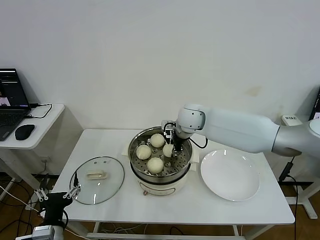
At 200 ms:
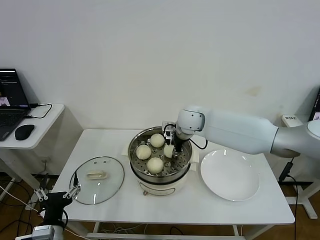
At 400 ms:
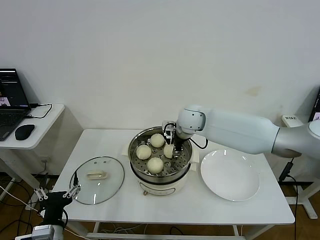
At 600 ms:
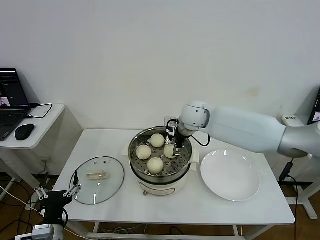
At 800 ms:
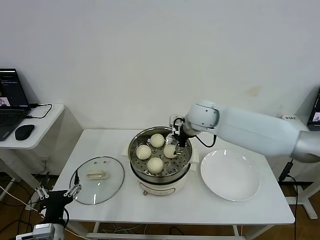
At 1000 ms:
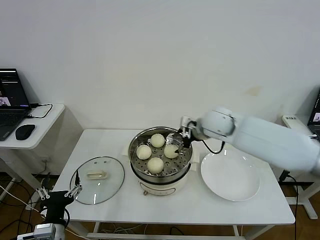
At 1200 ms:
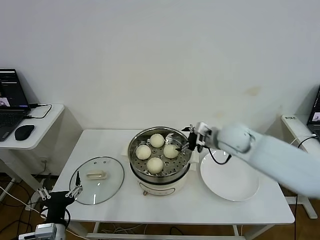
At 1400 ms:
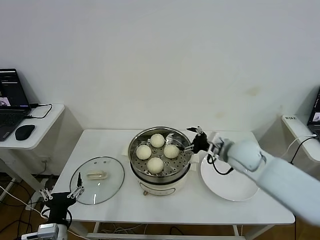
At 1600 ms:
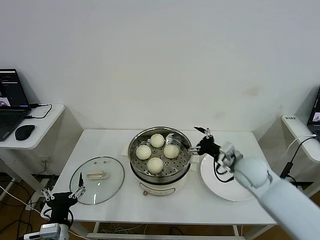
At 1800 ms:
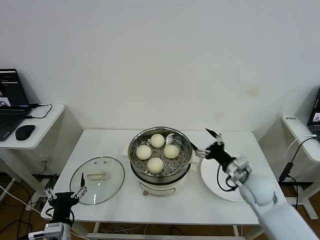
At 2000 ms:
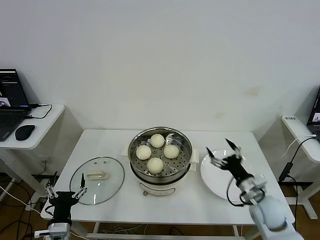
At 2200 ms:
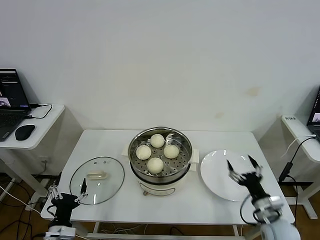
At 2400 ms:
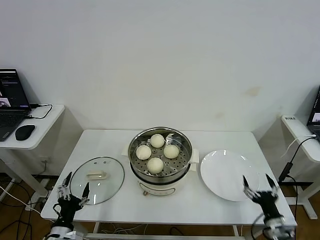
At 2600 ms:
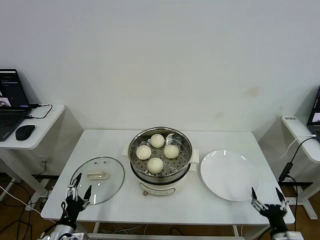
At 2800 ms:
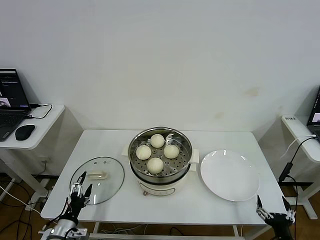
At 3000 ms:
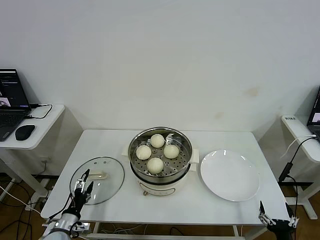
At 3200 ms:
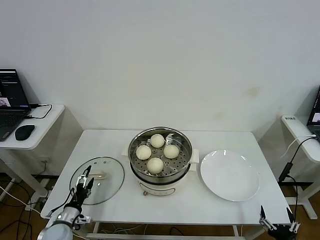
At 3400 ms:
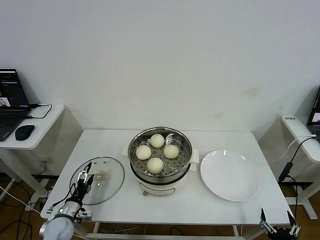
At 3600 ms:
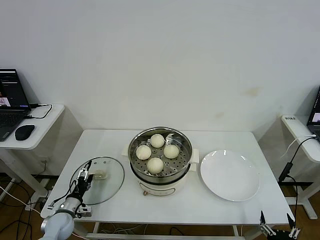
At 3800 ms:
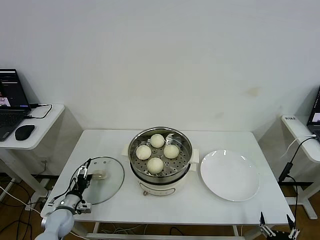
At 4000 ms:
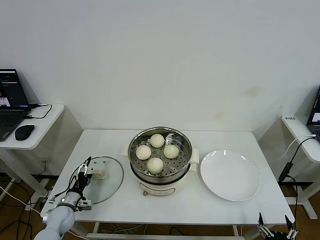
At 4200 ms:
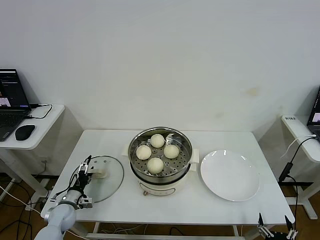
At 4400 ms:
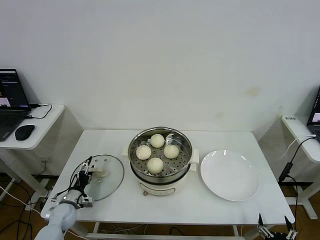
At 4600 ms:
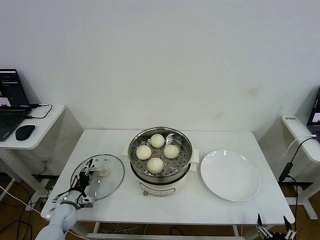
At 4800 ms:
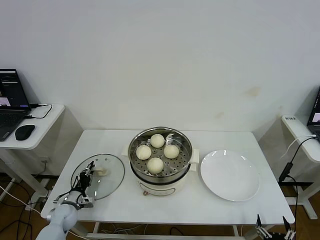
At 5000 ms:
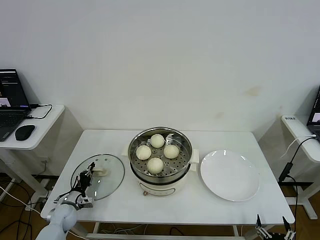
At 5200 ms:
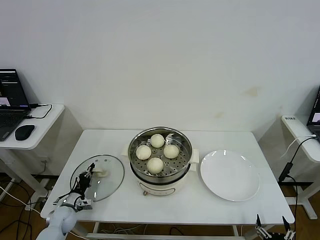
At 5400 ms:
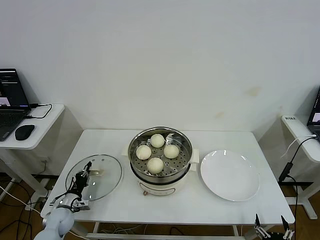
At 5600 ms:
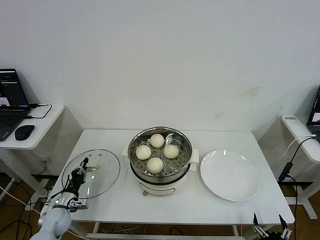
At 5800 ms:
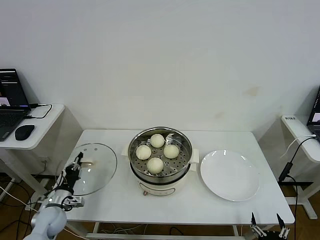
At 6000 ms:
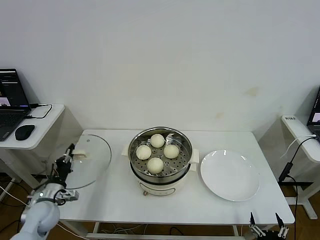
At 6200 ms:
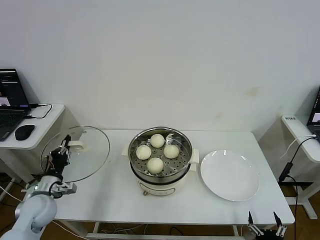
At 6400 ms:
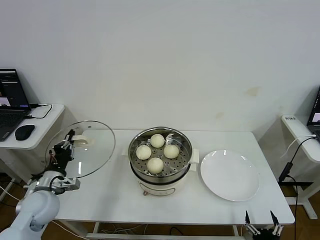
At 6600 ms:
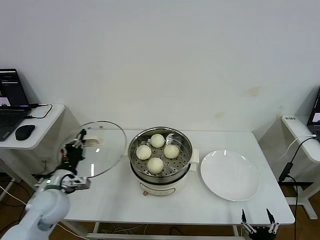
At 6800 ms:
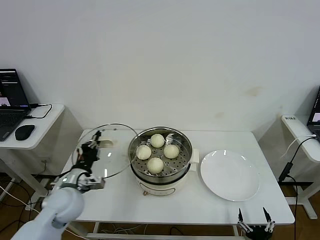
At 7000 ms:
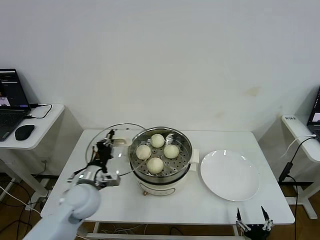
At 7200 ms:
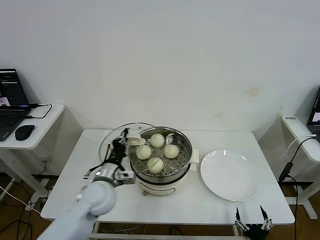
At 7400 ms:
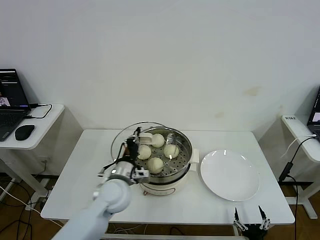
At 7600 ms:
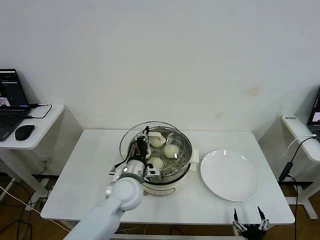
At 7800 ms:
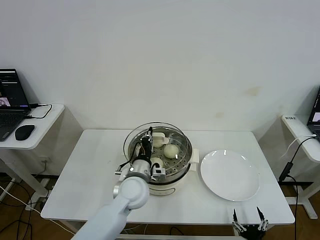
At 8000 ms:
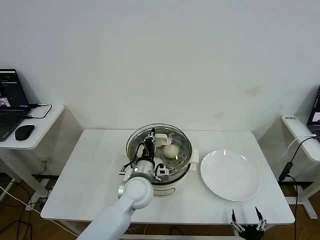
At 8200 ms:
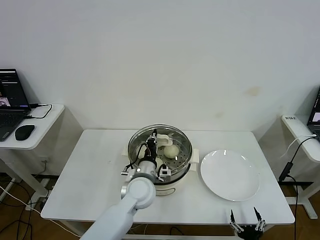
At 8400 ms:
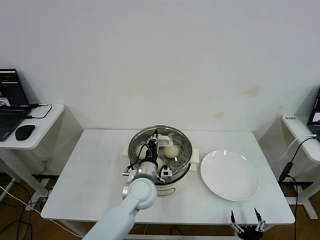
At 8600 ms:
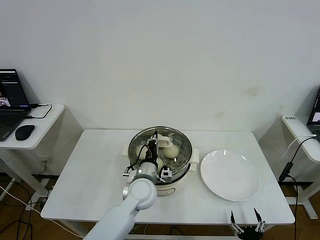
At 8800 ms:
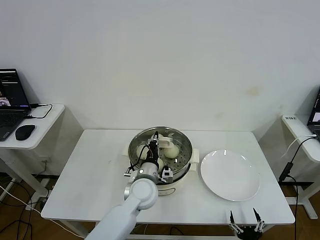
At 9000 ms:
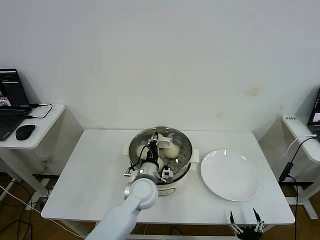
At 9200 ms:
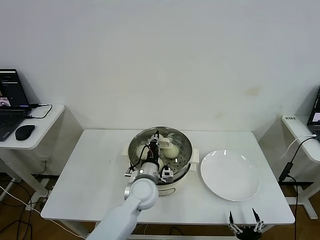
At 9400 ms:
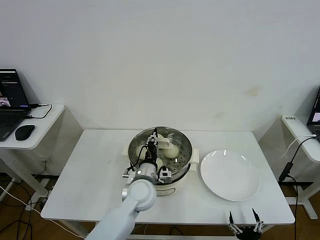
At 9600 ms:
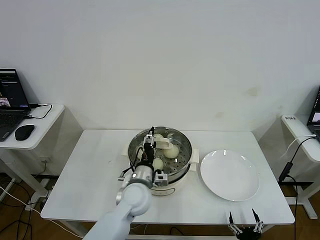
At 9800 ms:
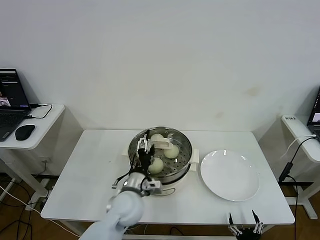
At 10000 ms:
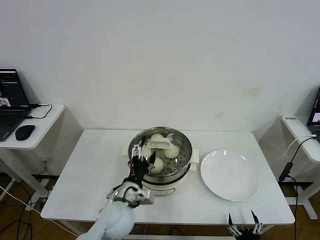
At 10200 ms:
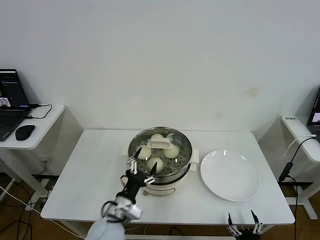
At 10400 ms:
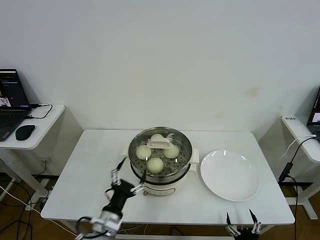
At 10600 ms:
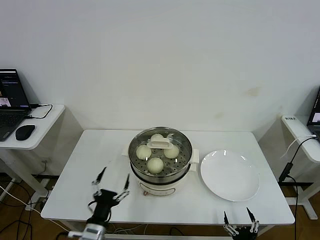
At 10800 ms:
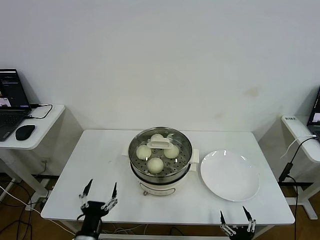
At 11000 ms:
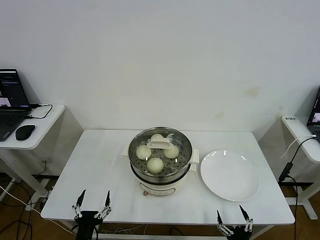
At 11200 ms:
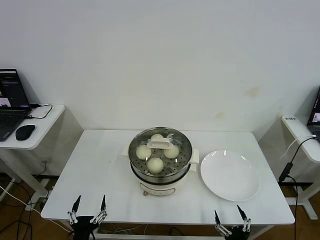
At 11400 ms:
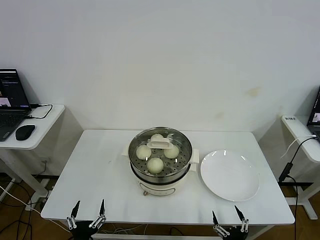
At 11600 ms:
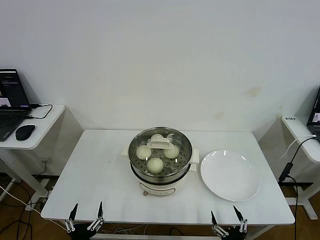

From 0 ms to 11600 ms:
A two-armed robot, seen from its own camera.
Step, from 600 ms to 5000 ms: Grasp the pot lid with left gripper.
Step, from 5200 ms to 9400 ms: Place the pot lid on the steamer with left gripper.
From 0 ms to 1400 ms: The right gripper shifts approximately 20 cm to the right and backward, and opens up.
From 1400 ms to 2800 ms: The left gripper shifts approximately 10 cm downward and to the left. Meanwhile the right gripper travels backward, downward and to the right by roughly 40 cm.
From 2800 ms to 4400 ms: The right gripper shifts by some 5 cm; the left gripper heads forward, covering roughly 15 cm.
From 4400 ms to 5800 ms: The left gripper ends up some 5 cm from where it was, and closes up.
From 5800 ms to 7200 ms: The left gripper goes approximately 25 cm to the right and upward.
From 7200 ms to 8800 ms: The left gripper moves to the right, about 15 cm.
From 8800 ms to 10200 ms: The left gripper heads backward and to the left, covering some 15 cm, and opens up.
From 10200 ms to 11600 ms: The left gripper is displaced backward, to the left and downward by approximately 20 cm, while the right gripper shifts by roughly 5 cm.

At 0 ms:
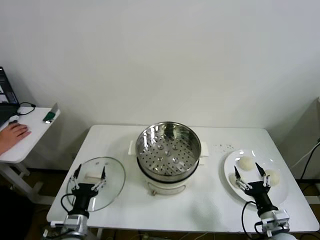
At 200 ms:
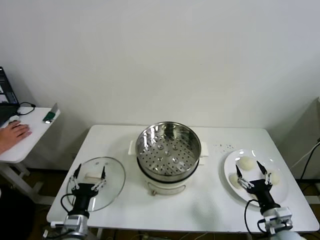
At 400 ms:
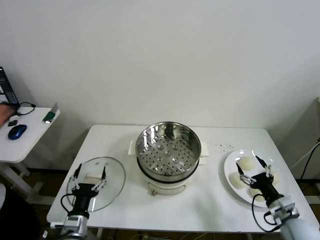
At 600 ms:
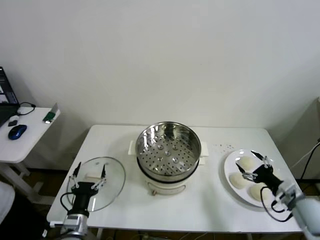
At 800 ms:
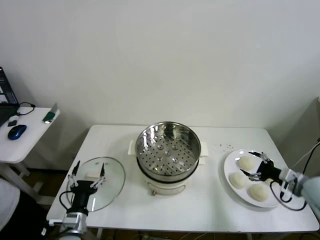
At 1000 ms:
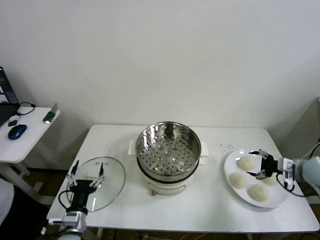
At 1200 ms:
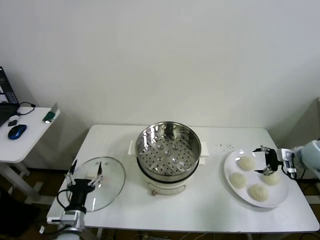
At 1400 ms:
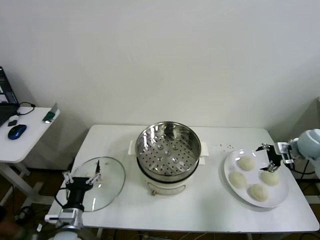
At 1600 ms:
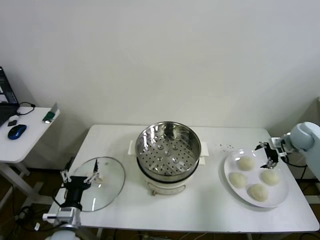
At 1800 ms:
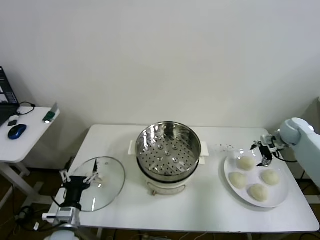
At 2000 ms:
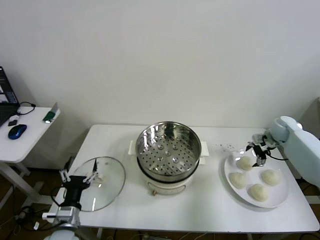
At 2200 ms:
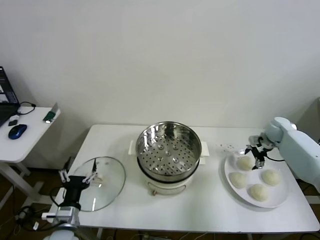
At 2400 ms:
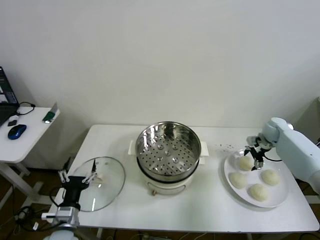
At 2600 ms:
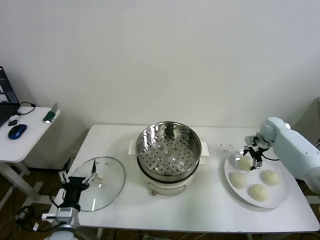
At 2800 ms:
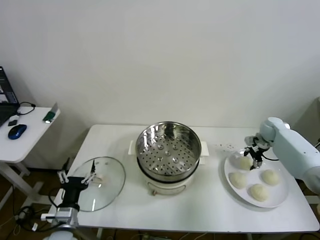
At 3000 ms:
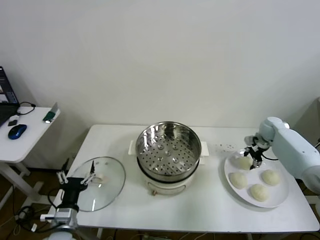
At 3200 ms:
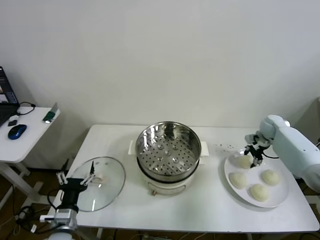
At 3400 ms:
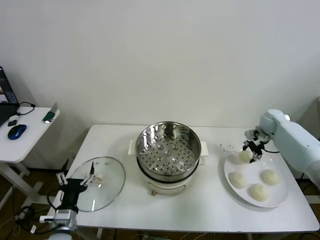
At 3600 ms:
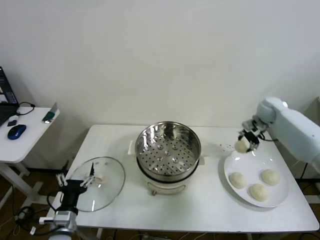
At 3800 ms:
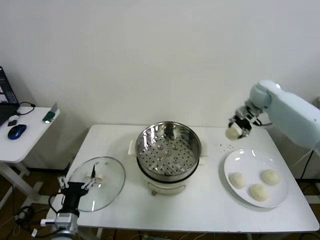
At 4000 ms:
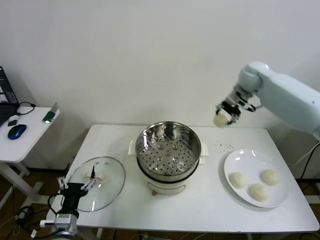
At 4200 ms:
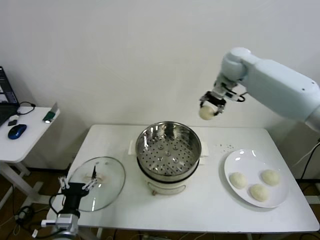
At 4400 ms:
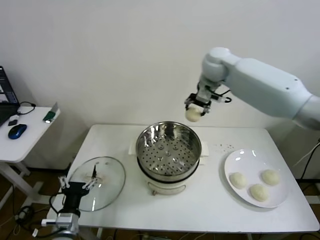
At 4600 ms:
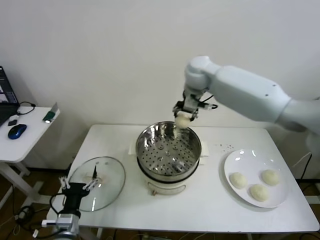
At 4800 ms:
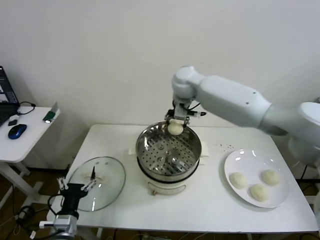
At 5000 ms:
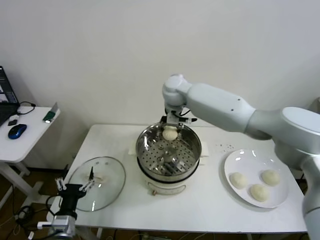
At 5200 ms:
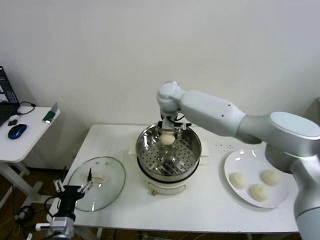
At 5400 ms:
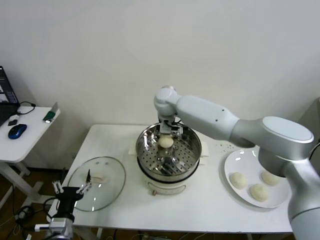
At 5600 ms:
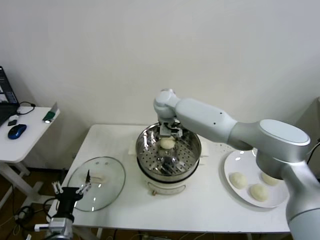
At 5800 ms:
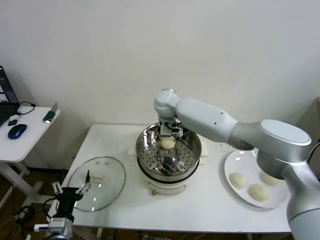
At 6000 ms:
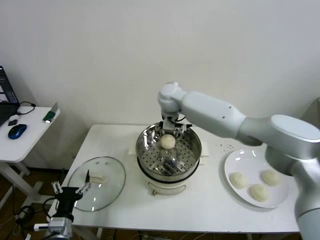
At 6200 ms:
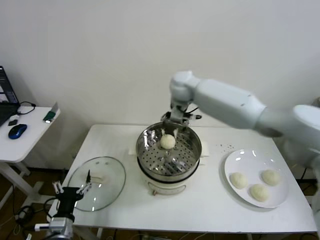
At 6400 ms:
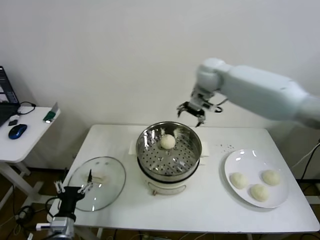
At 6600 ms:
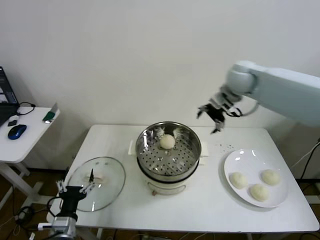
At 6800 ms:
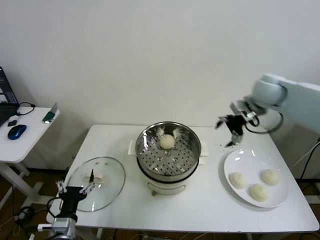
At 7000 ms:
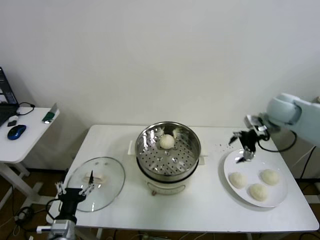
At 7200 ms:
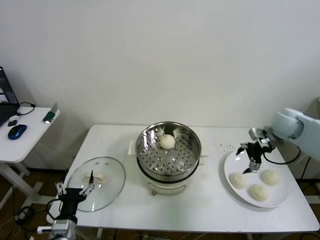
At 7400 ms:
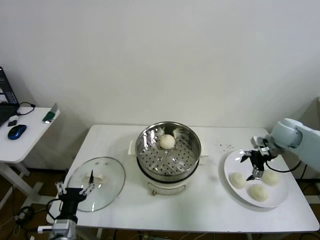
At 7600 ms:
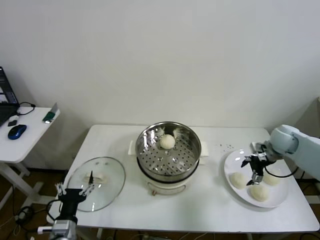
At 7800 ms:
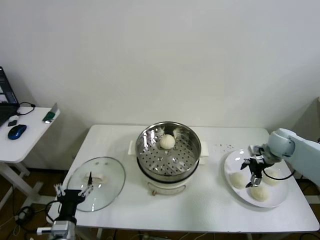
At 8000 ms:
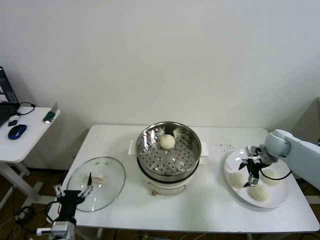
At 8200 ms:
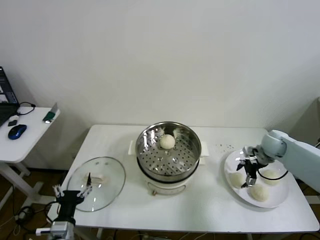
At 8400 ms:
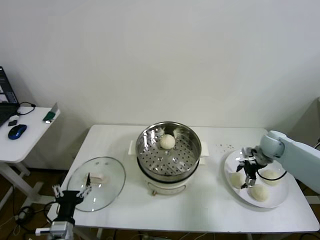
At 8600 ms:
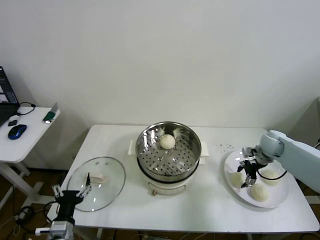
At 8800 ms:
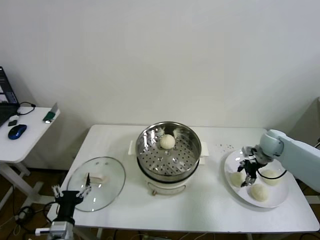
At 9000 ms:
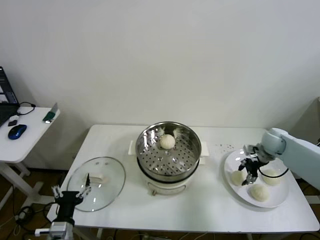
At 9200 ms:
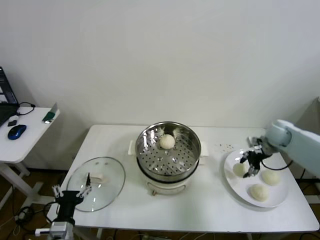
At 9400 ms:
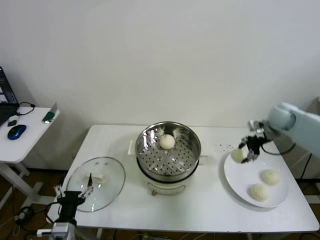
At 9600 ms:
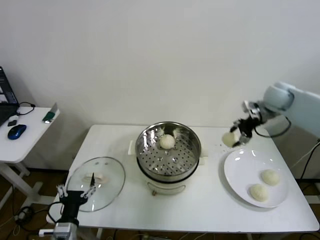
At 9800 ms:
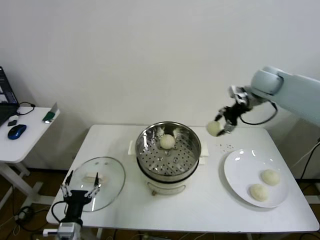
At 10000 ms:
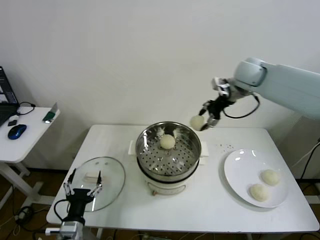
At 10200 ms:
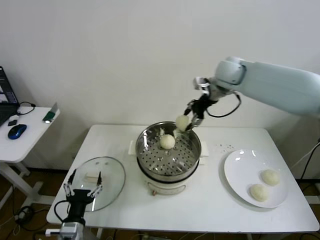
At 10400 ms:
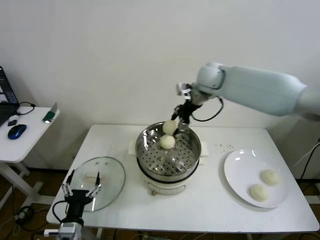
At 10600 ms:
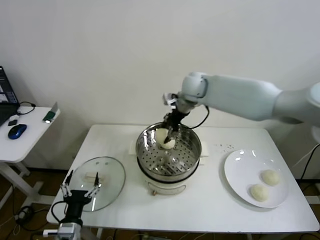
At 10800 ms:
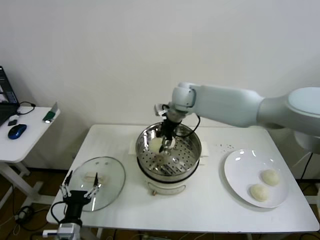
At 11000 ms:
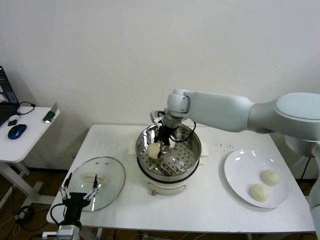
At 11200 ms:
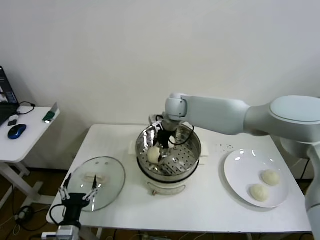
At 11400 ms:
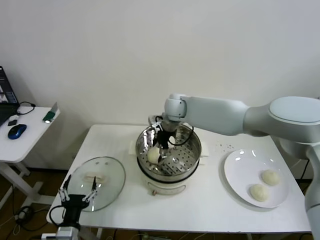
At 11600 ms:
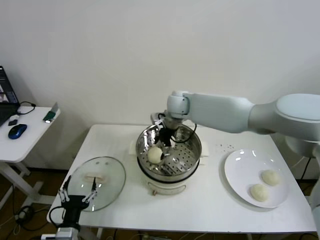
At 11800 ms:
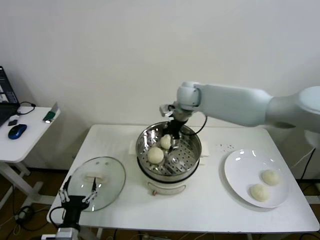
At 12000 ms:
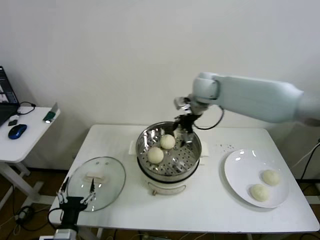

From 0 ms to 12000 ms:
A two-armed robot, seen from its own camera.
Step, from 0 ms to 3000 ms: Grasp the baozi in the plate with right gripper.
Step, from 3200 ms to 6000 ms: Place the baozi on the steamer with right gripper.
Step, from 6200 ms to 8600 ms: Grasp the baozi in the plate with right gripper.
Step, from 8800 ms to 11600 ms: Place the baozi on the steamer with right gripper.
From 1600 ms to 3000 ms: The right gripper moves forward, some 5 cm, and closes its fingers.
From 3000 ms to 4400 ms: The right gripper is displaced to the left and upward by about 40 cm.
From 4400 ms to 6000 ms: The right gripper shifts some 10 cm to the left and downward, and opens.
From 6000 ms to 7600 ms: The right gripper travels to the right by approximately 40 cm.
From 7600 ms to 9000 ms: The right gripper closes its fingers.
From 9000 ms to 10400 ms: The right gripper shifts some 35 cm to the left and upward.
From 10400 ms to 12000 ms: The right gripper reaches roughly 10 cm to the left, then returns, and opens.
